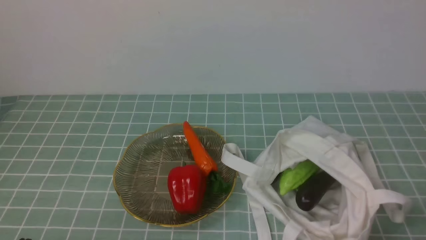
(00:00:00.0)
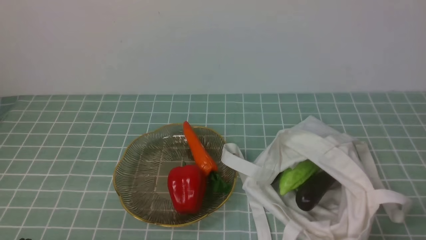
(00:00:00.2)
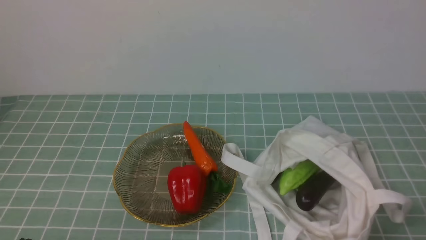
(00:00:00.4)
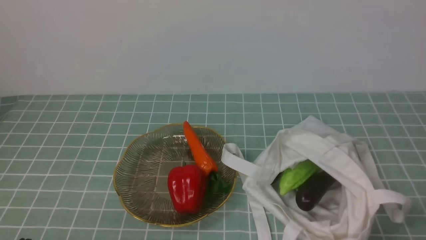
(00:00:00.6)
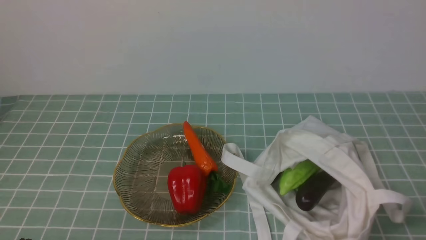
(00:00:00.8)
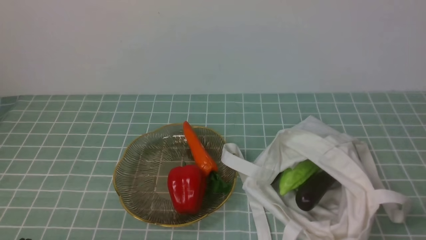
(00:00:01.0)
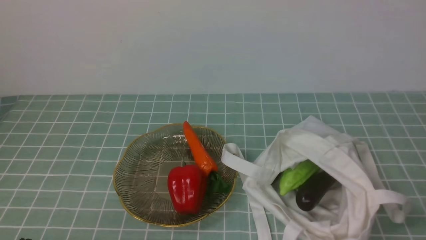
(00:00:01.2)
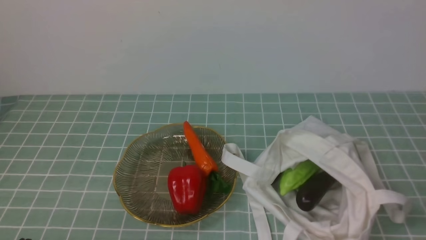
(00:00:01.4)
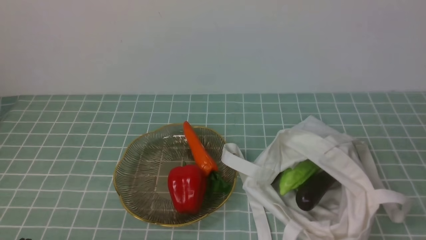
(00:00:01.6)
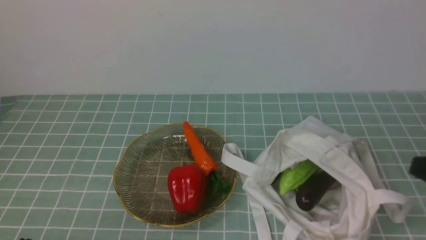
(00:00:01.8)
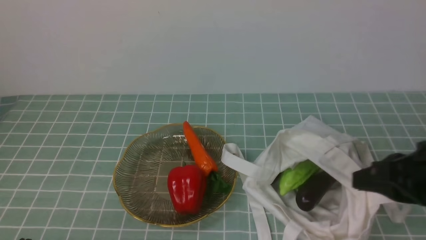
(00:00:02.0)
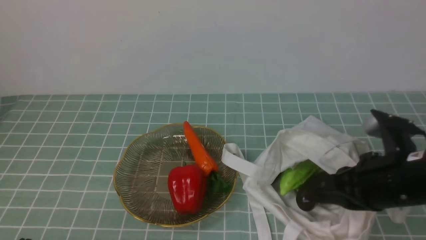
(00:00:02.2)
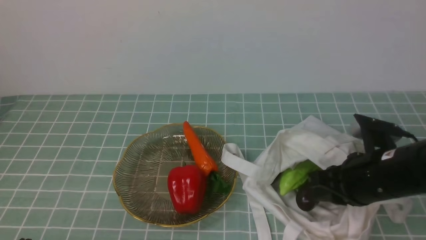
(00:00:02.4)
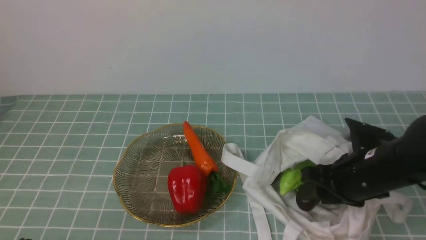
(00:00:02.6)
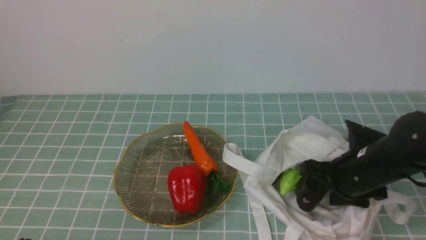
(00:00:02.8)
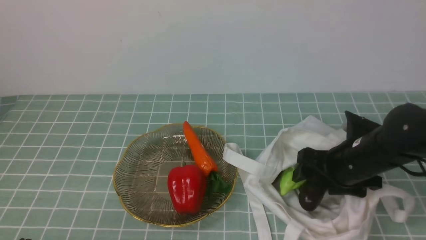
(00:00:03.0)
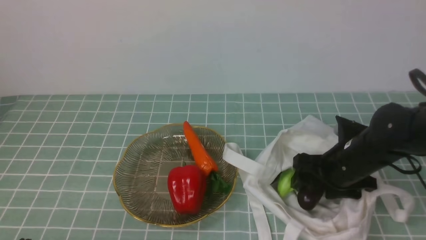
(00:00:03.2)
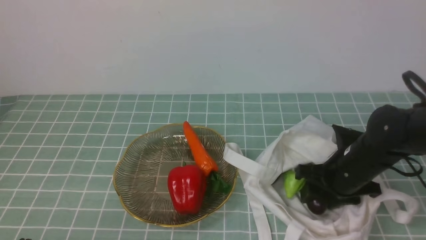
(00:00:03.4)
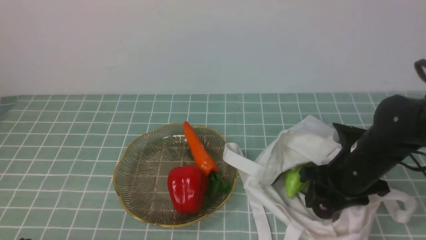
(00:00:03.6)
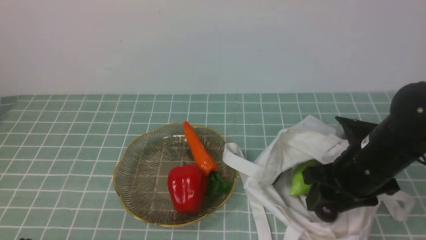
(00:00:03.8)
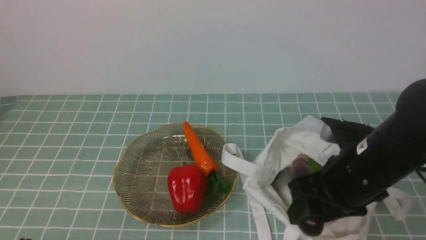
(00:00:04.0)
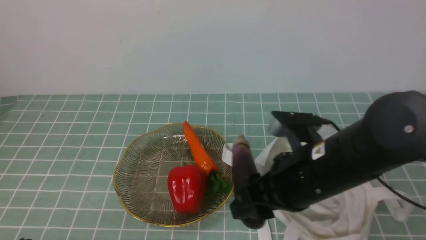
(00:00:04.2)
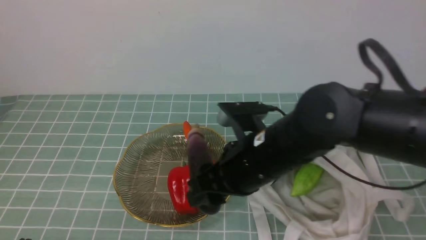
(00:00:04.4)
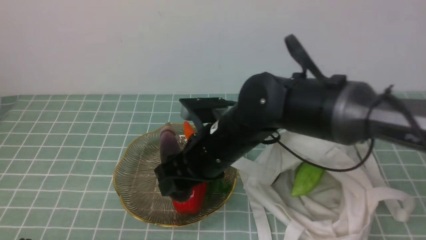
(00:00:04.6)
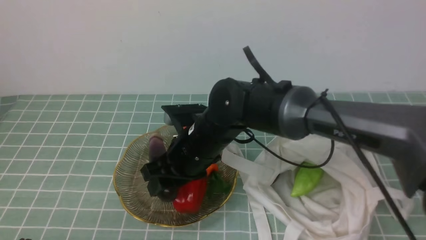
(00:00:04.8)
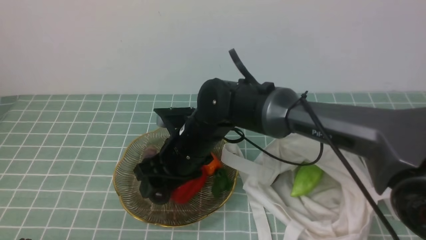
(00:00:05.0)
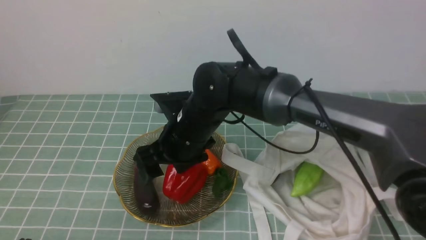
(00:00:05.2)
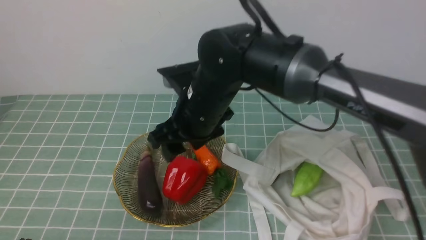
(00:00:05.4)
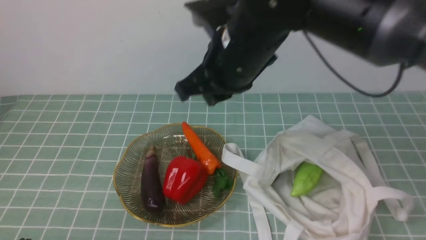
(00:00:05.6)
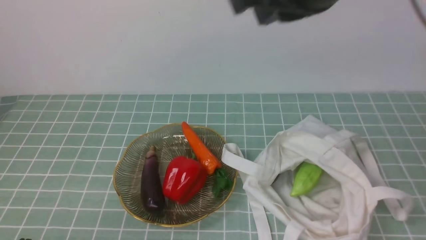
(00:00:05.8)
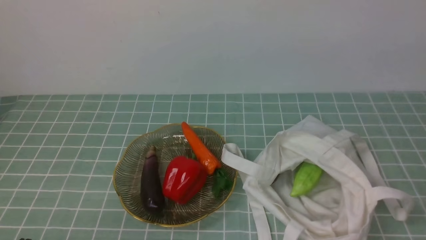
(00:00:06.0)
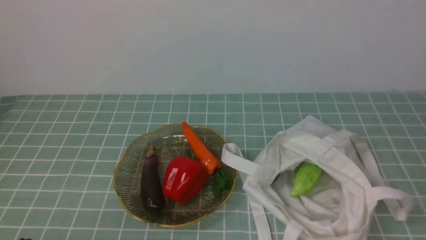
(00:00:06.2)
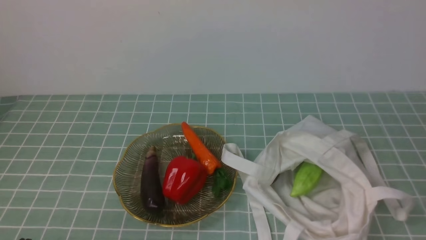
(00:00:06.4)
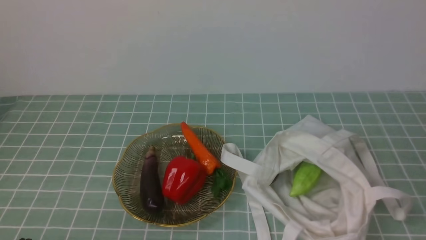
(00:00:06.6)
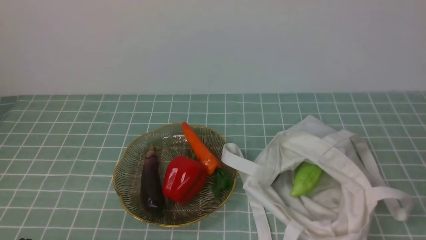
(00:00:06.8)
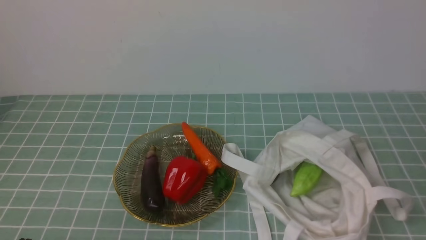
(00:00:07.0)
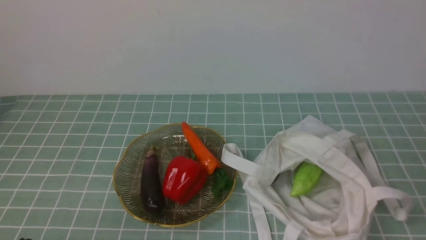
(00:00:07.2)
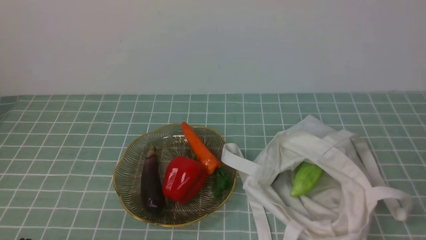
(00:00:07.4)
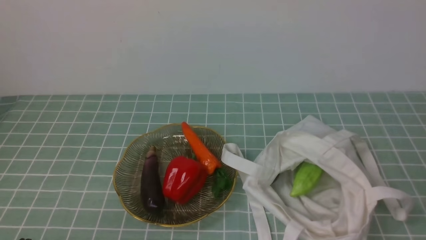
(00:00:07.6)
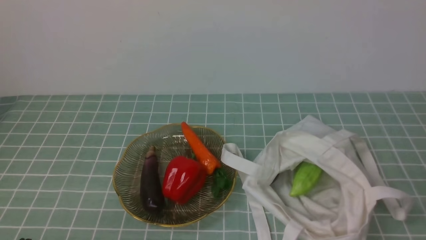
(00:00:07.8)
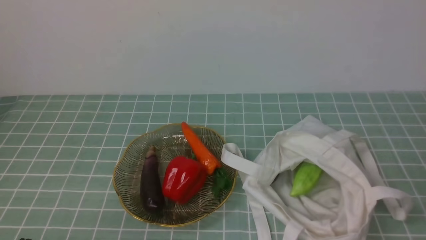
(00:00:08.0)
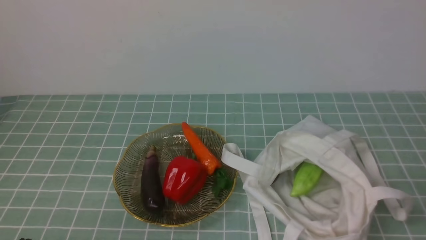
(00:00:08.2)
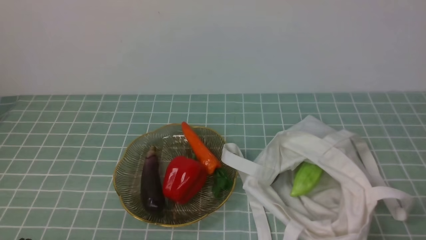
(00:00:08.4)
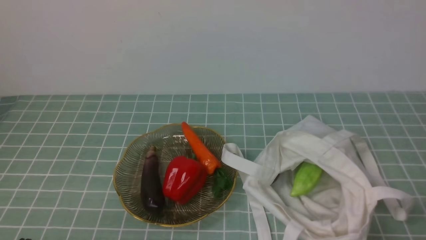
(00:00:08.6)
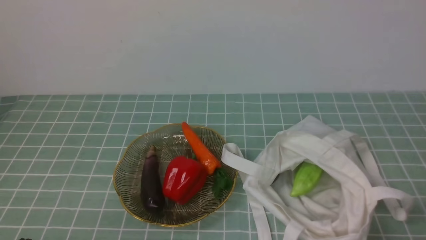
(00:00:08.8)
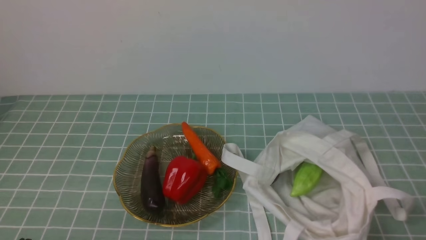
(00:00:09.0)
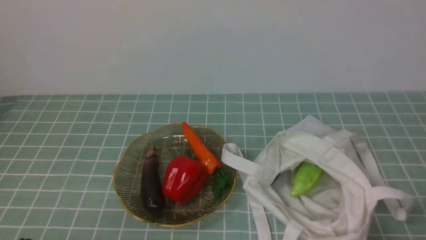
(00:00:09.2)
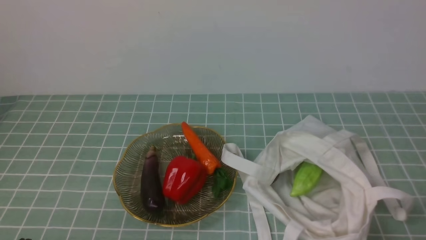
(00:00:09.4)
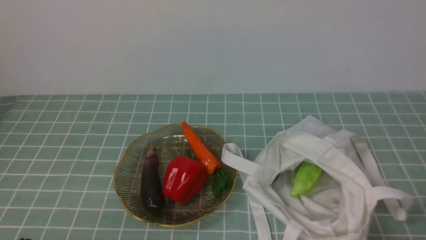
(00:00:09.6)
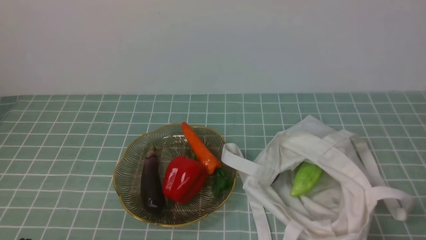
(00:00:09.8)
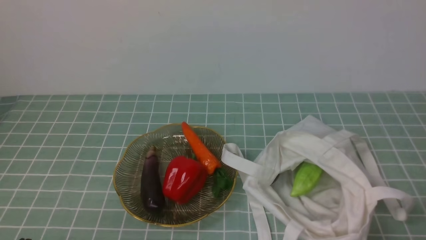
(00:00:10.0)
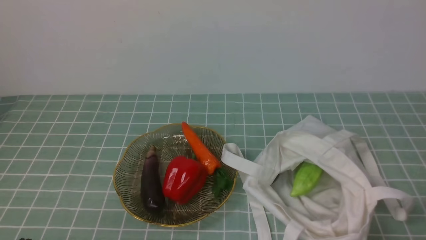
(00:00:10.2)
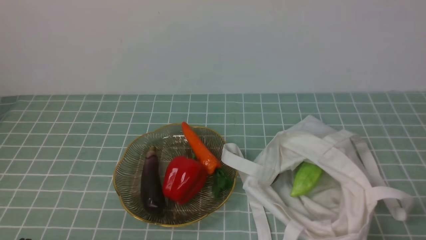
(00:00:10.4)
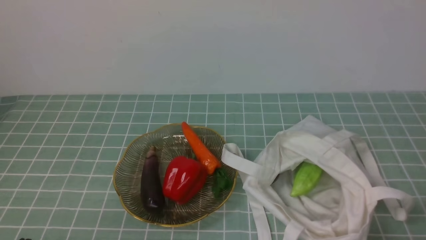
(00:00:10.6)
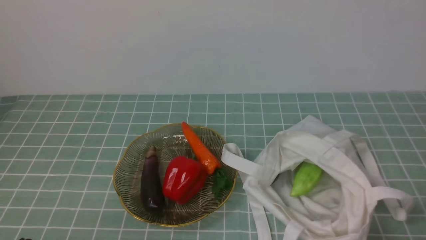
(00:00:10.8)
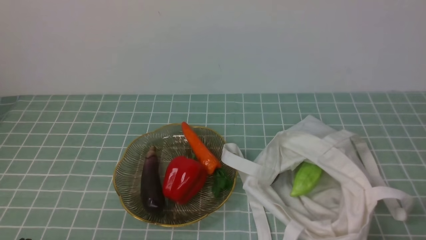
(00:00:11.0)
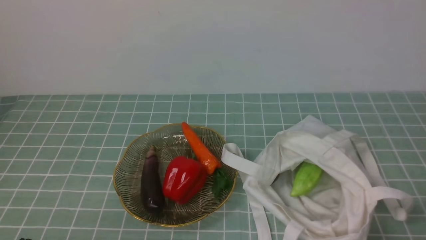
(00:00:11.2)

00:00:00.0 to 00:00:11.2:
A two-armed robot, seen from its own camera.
Task of the whole recording: take vegetables from cloth bag on blue coffee tablecloth place on plate.
Step, 00:00:00.0 to 00:00:03.6: Grasp the eggplant with right gripper.
Step, 00:00:03.8 to 00:00:05.2: Place the eggplant on the plate with right gripper.
00:00:01.6 to 00:00:03.2: The right gripper goes some 25 cm forward and downward, and opens up.
00:00:03.2 to 00:00:04.8: The right gripper travels to the left by approximately 25 cm.
00:00:04.8 to 00:00:06.4: The right gripper is displaced to the right, backward and upward by some 50 cm, and closes its fingers.
00:00:09.6 to 00:00:11.2: The two grippers keep their place.

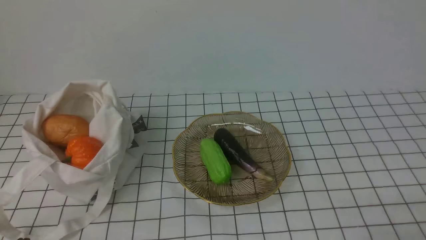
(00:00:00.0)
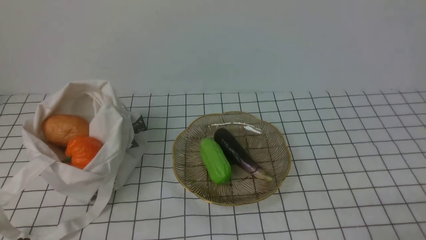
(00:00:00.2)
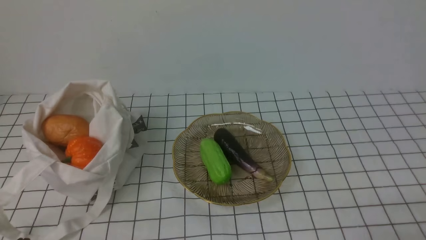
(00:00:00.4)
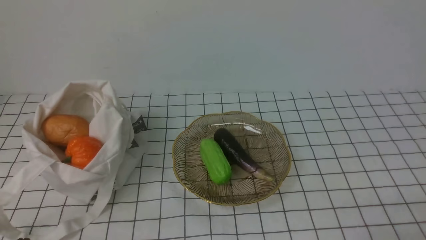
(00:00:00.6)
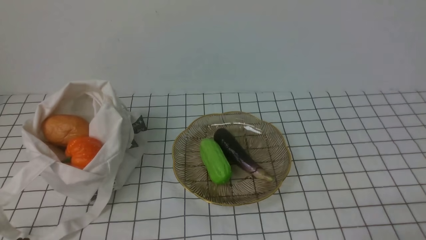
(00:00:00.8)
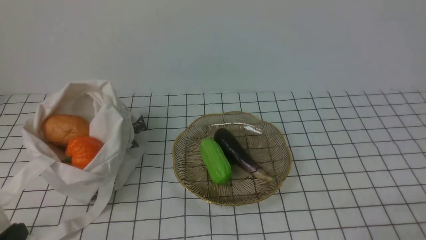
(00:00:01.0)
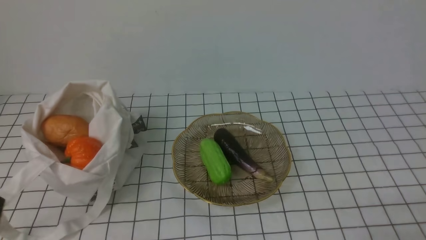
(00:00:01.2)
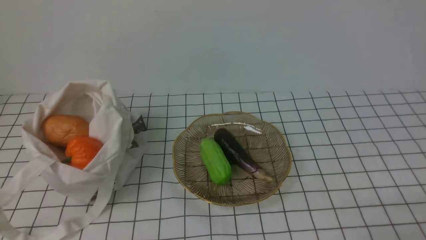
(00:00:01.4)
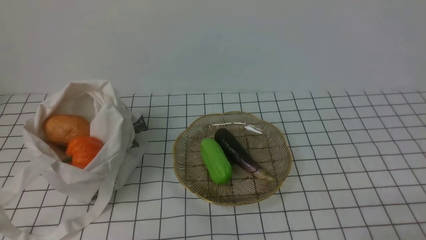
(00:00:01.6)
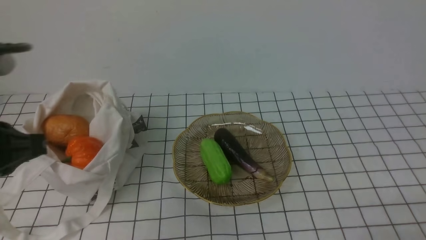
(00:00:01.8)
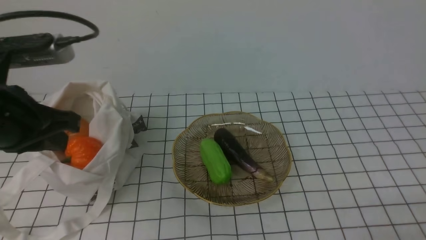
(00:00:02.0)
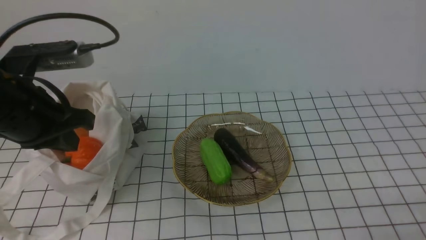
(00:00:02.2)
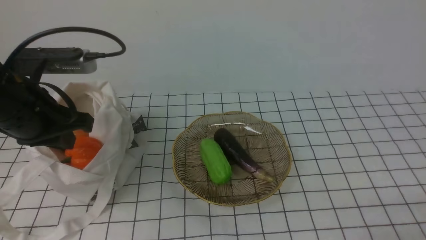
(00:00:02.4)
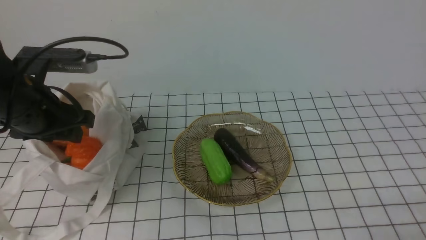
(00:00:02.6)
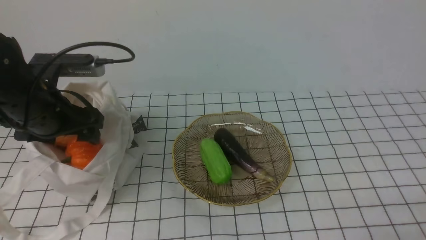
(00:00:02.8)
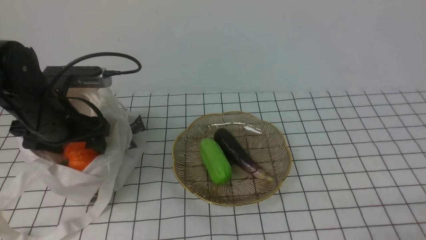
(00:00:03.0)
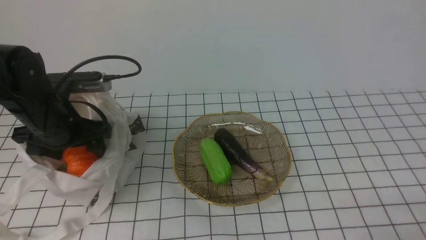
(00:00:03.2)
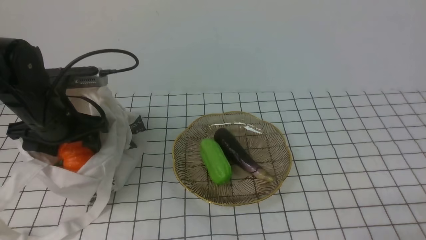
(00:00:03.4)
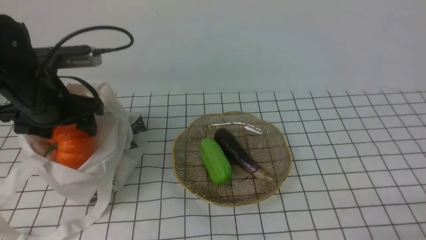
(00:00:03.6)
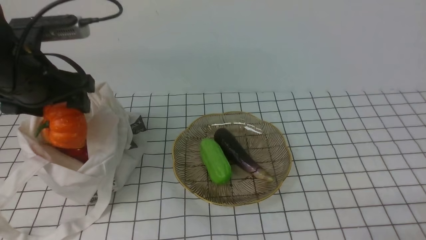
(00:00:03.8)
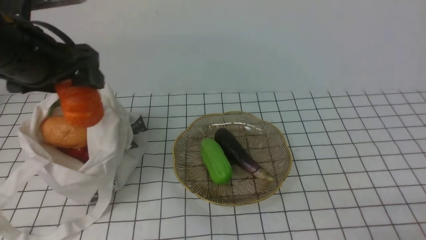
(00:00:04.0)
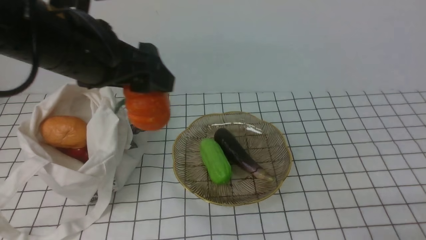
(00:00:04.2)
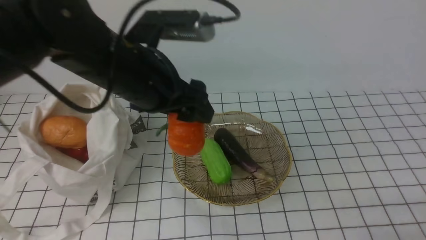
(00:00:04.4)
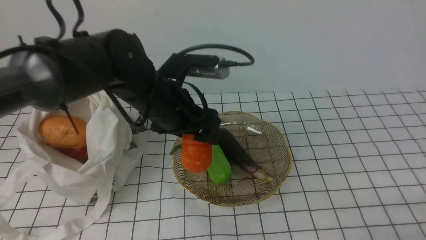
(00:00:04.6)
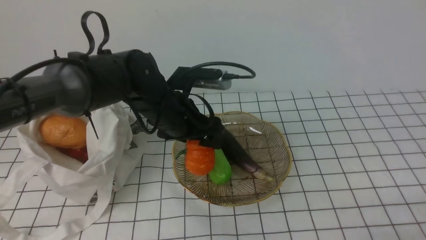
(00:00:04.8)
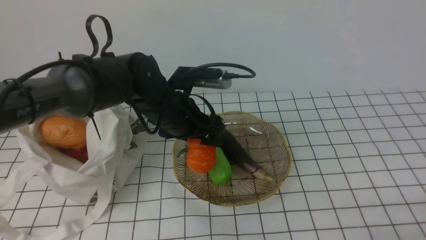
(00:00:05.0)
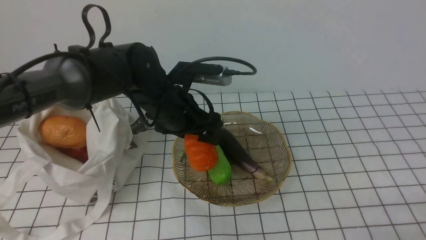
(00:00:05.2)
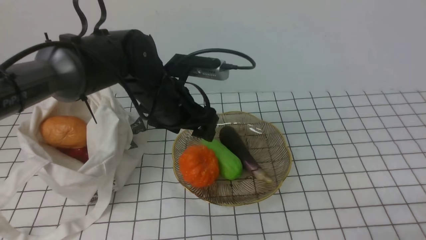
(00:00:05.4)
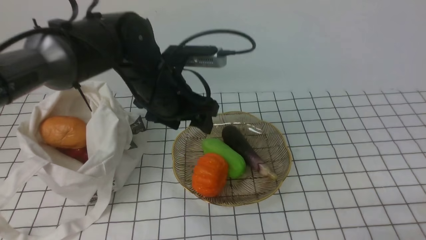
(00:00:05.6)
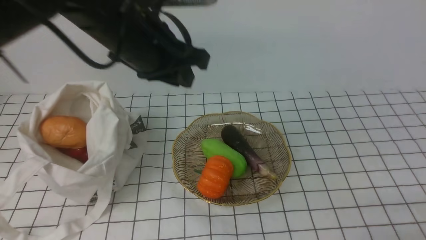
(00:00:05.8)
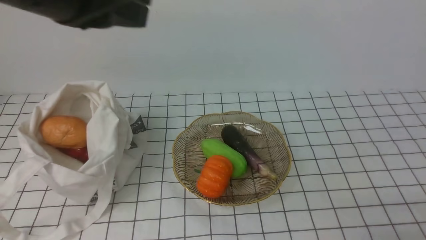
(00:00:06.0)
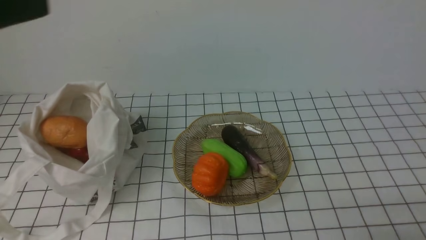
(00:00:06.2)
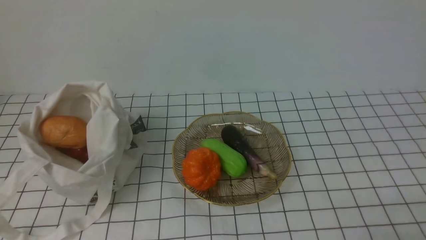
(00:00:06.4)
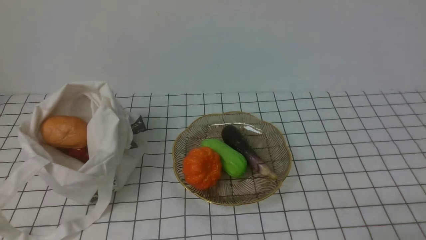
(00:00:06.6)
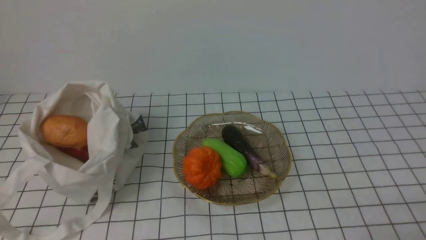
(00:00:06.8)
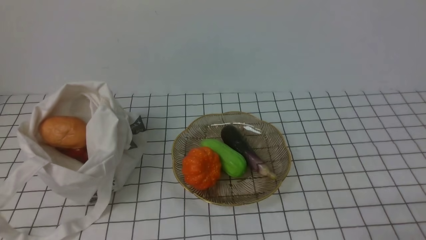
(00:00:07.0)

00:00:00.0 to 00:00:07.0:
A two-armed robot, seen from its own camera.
Task of the whole recording: take vegetables from bag on white checkered tablecloth place on plate.
Step, 00:00:00.0 to 00:00:03.0: Grasp the pumpkin with left gripper.
Step, 00:00:03.4 to 00:00:05.4: Place the pumpkin on the plate with left gripper.
00:00:01.4 to 00:00:02.8: The left gripper goes roughly 25 cm forward, and opens.
00:00:02.8 to 00:00:04.2: The left gripper goes some 10 cm upward and to the right.
00:00:04.2 to 00:00:05.6: The left gripper is displaced to the right, forward and downward by roughly 10 cm.
00:00:05.6 to 00:00:07.0: The left gripper goes approximately 35 cm backward and to the left, and closes up.
